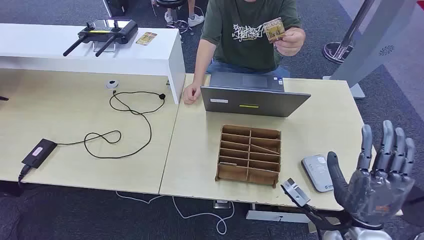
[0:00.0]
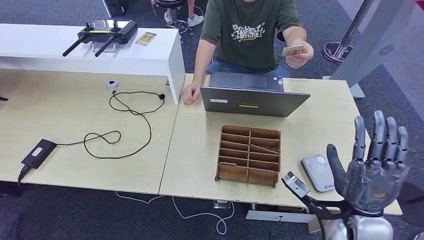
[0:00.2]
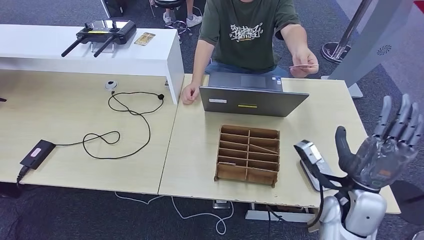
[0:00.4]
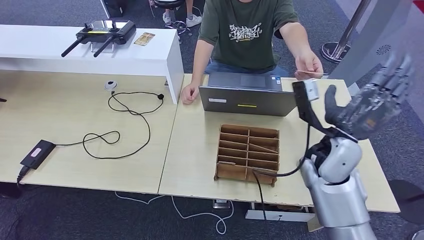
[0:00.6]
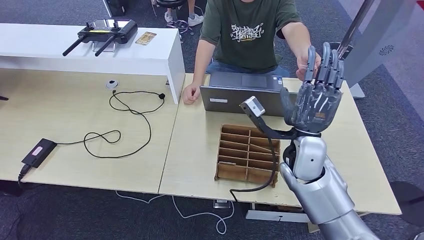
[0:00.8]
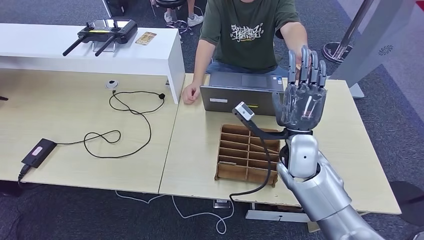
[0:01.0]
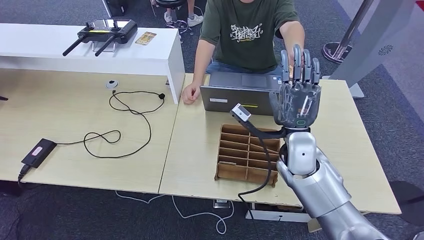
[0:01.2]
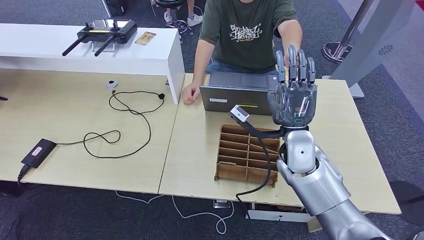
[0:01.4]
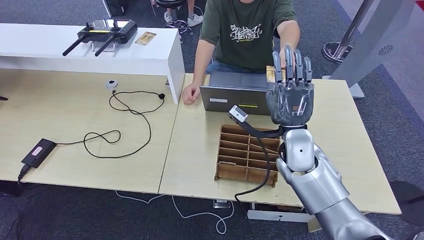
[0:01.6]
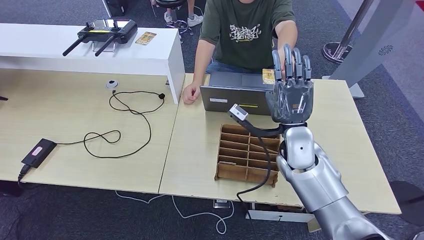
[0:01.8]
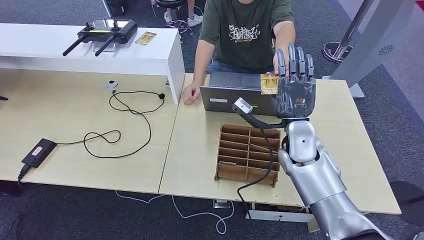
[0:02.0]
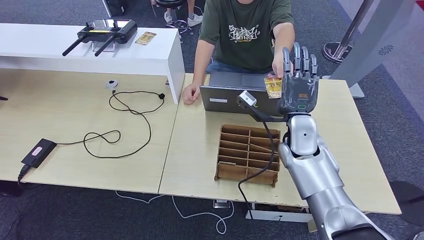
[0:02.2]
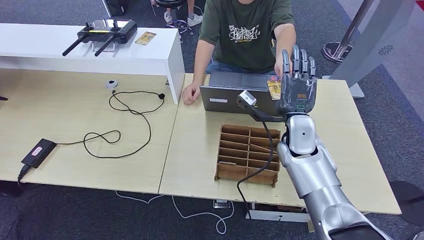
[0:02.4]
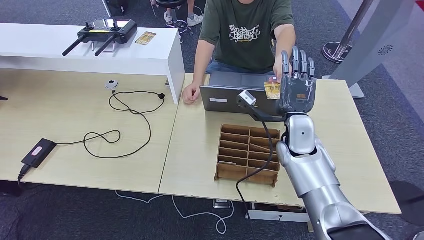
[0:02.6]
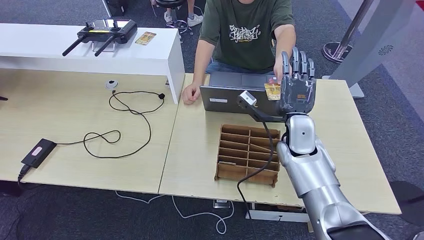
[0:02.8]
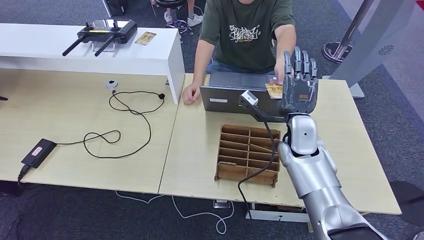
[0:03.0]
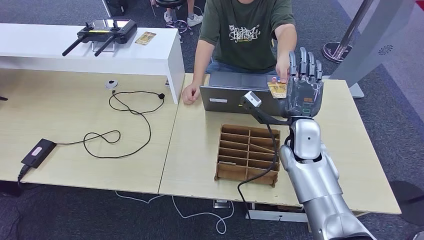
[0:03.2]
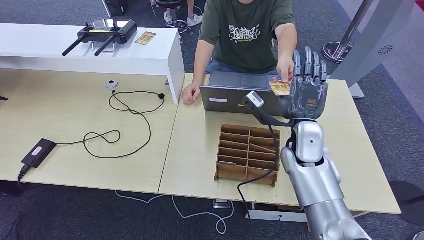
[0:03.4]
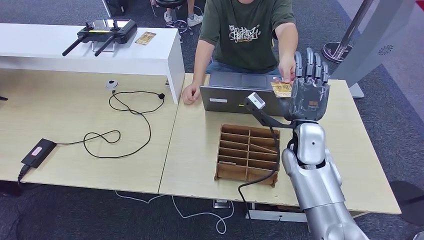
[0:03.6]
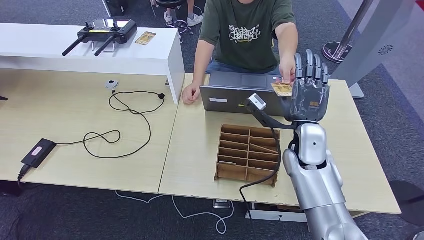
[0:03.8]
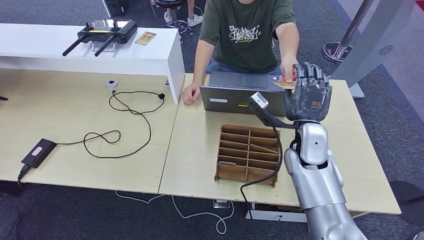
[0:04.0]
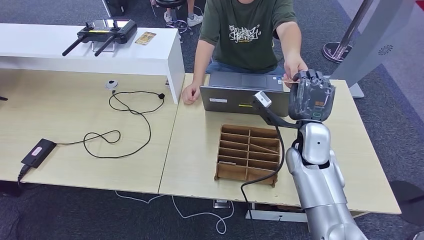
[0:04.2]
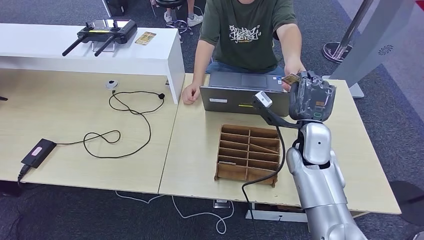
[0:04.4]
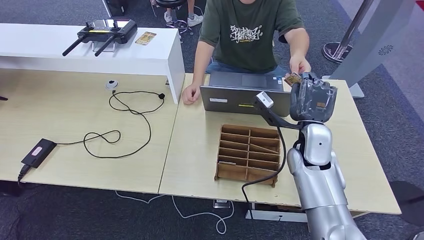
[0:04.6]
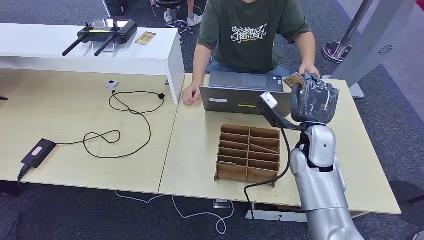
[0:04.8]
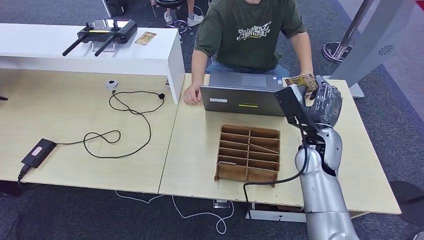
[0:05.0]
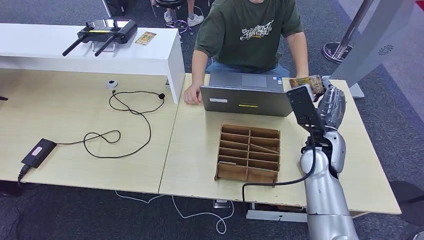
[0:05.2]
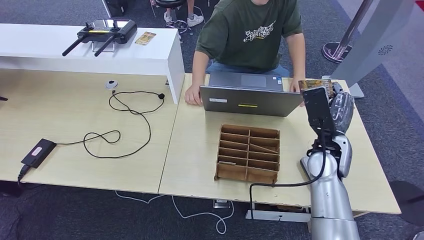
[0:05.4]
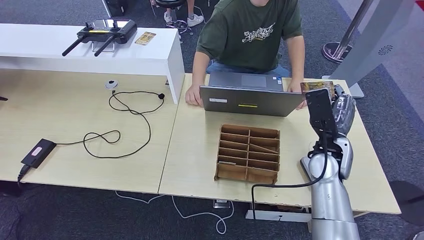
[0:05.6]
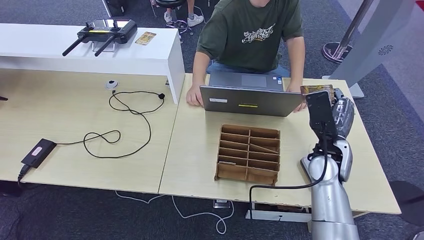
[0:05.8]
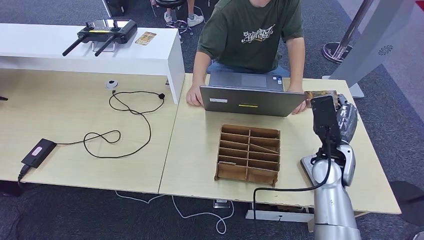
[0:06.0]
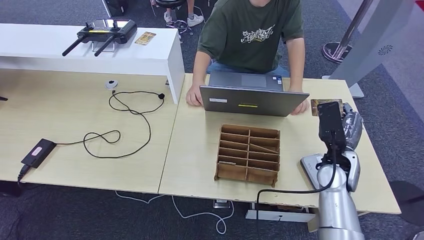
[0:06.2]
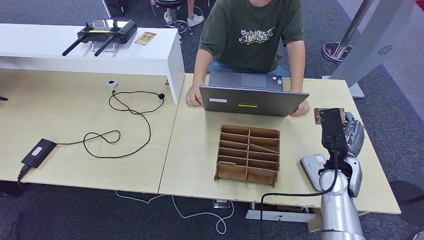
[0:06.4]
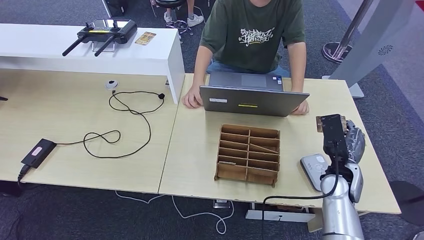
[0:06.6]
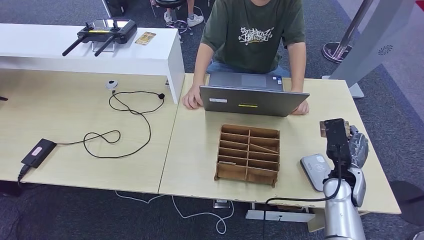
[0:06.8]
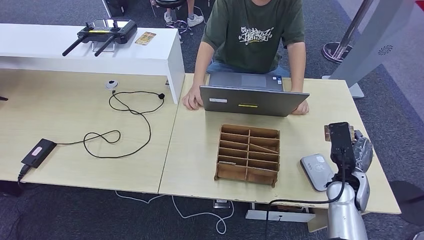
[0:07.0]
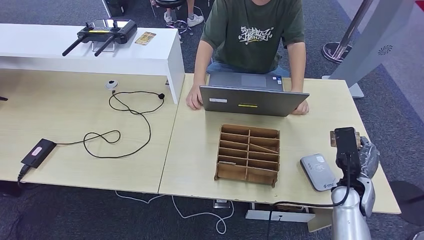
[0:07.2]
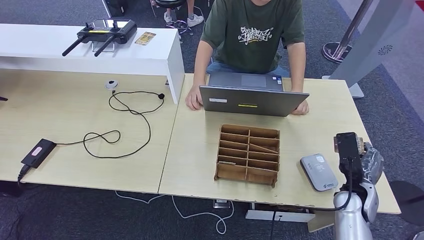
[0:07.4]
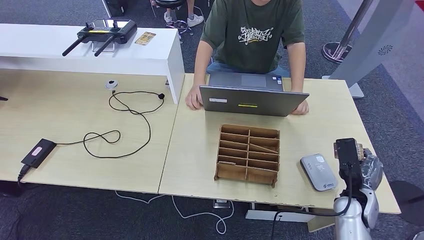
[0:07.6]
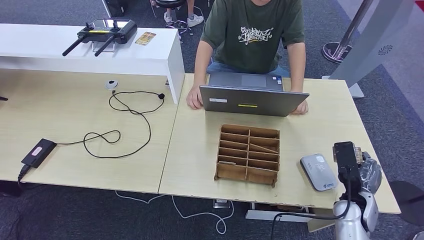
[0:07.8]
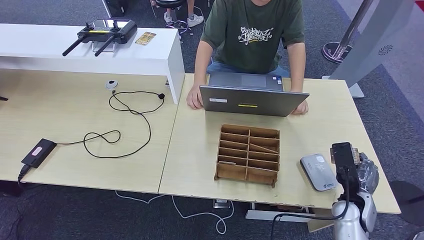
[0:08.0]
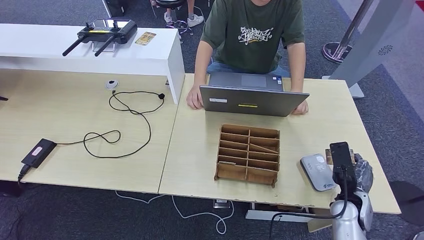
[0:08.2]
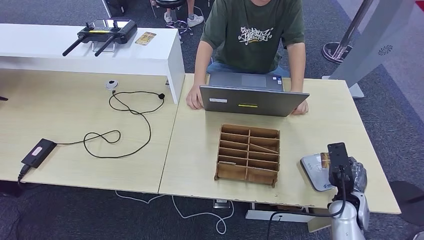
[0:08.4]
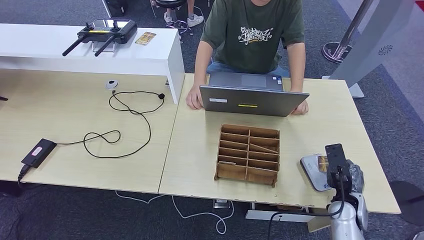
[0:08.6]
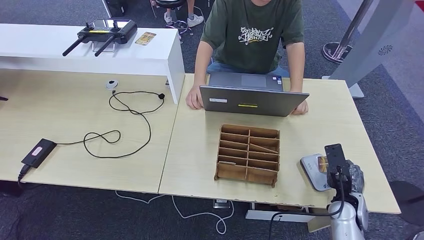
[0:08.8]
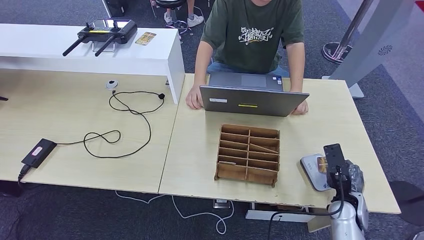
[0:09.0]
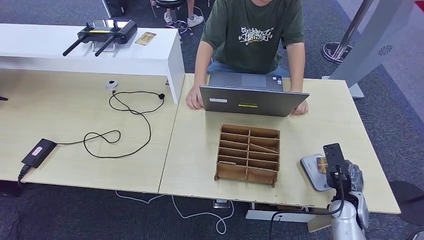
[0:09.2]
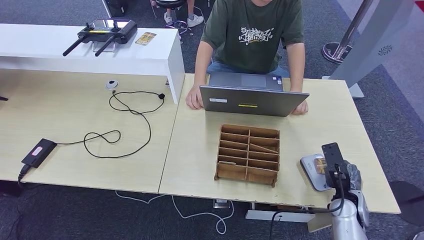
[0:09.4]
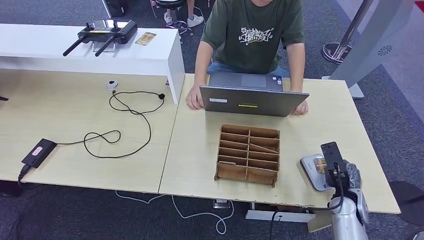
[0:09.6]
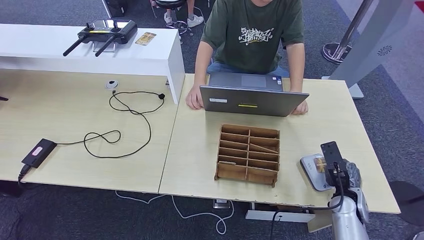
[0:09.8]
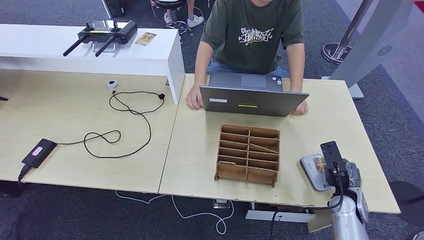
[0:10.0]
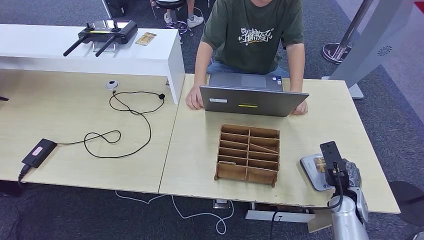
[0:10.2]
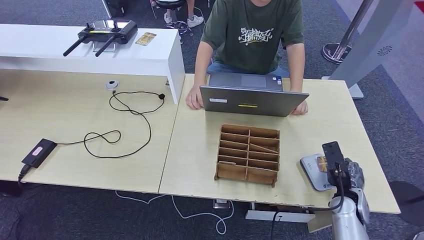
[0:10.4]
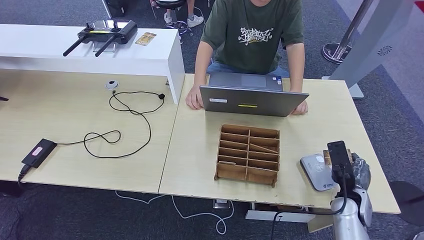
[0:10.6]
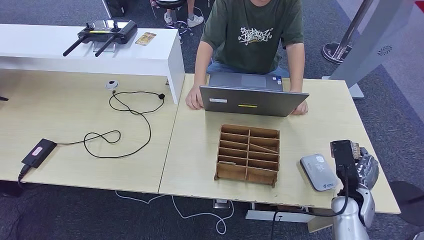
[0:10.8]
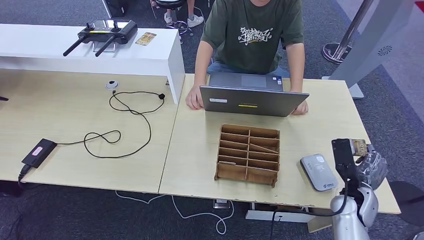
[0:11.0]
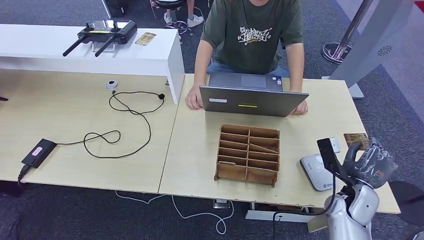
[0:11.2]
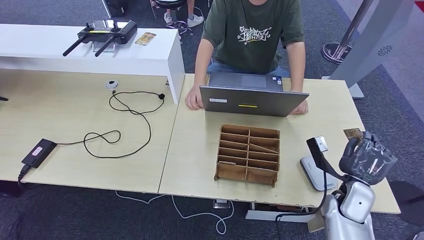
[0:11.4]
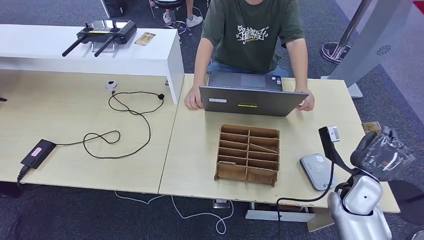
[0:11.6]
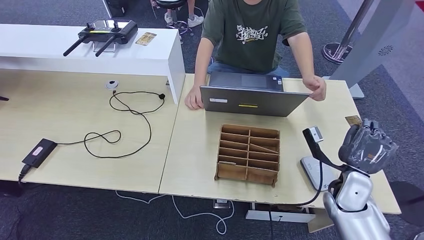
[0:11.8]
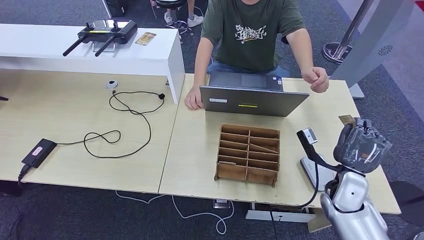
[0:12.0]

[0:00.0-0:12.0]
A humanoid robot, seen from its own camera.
Step, 0:00.0 to 0:05.0: Take the ID card from the person's hand.
Step, 0:05.2 to 0:09.8: Place the ID card on the card reader.
0:01.6 to 0:04.4: The hands make only small movements.
0:04.4 to 0:06.0: The right hand goes about 5 cm to the right.
0:06.0 to 0:07.6: The right hand travels downward, to the right and backward by approximately 15 cm.
0:07.6 to 0:09.0: The hands move only a little.
0:09.0 to 0:10.4: The hands move only a little.
0:10.4 to 0:12.0: The right hand moves upward, some 5 cm.

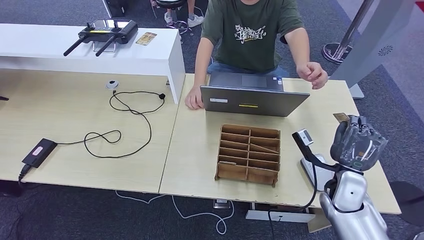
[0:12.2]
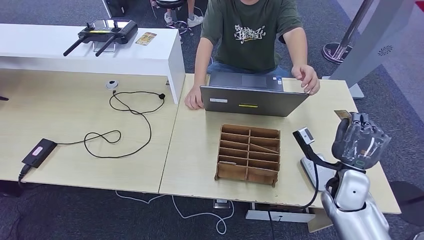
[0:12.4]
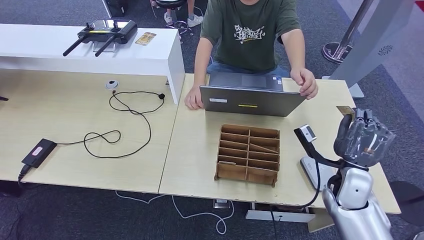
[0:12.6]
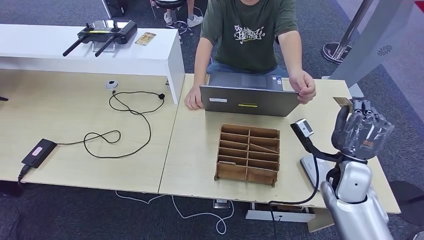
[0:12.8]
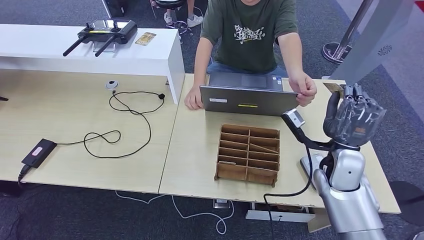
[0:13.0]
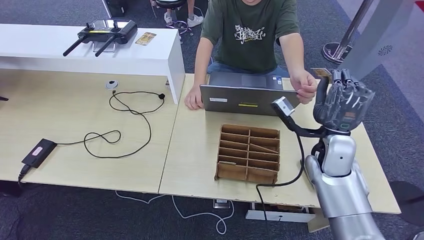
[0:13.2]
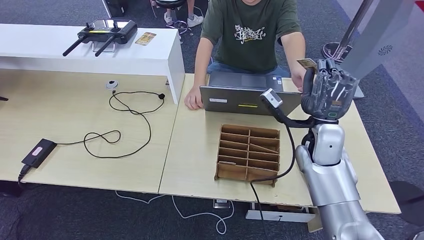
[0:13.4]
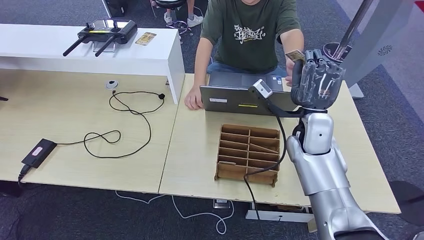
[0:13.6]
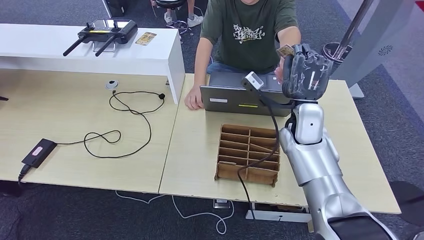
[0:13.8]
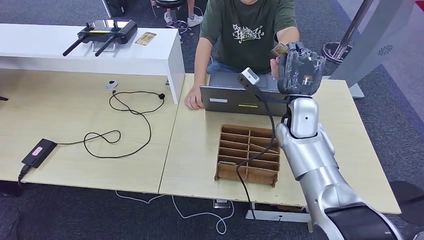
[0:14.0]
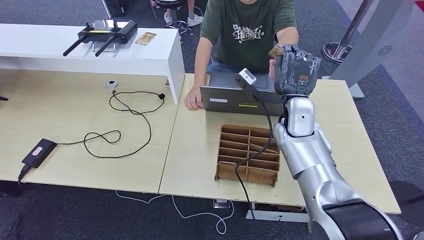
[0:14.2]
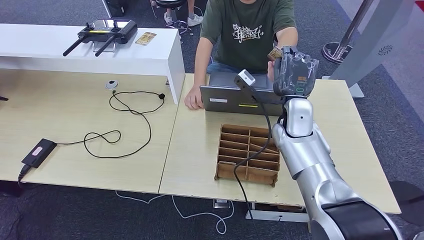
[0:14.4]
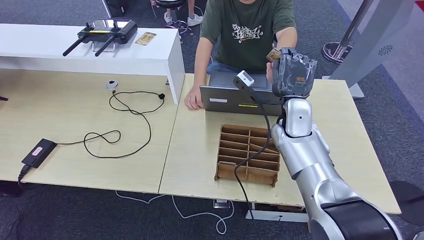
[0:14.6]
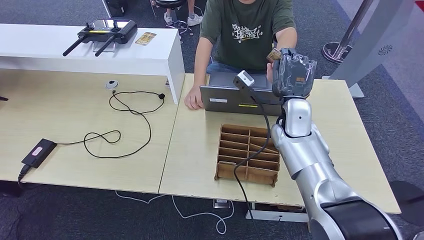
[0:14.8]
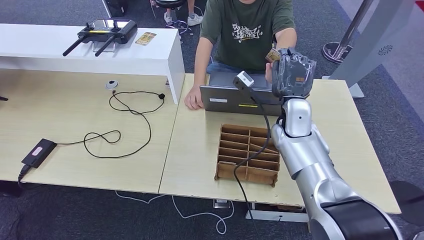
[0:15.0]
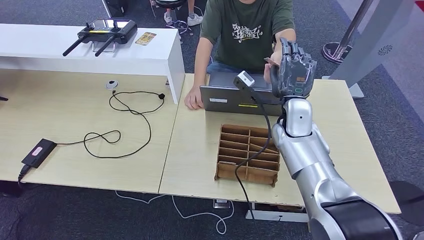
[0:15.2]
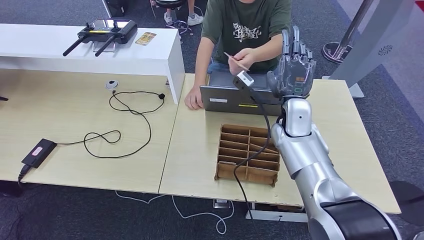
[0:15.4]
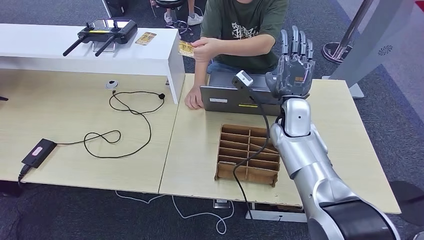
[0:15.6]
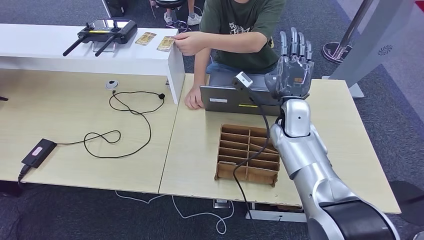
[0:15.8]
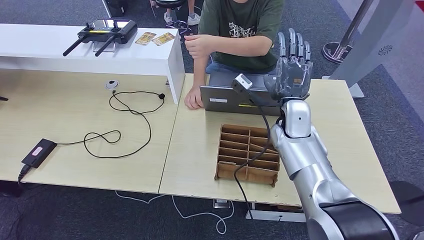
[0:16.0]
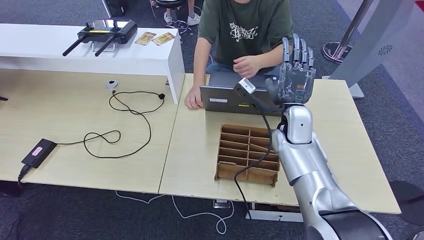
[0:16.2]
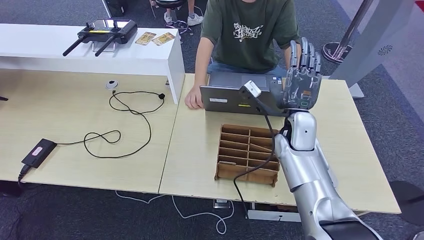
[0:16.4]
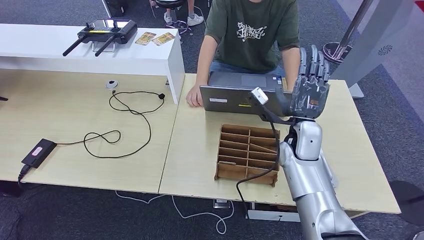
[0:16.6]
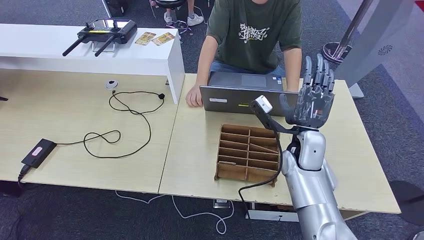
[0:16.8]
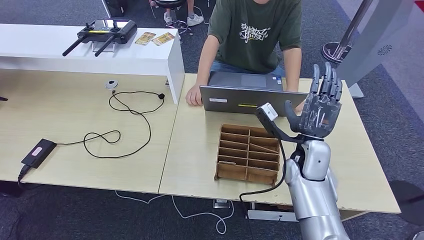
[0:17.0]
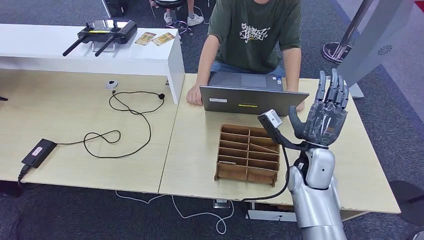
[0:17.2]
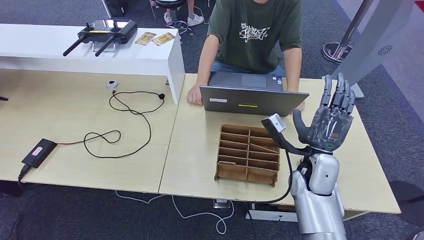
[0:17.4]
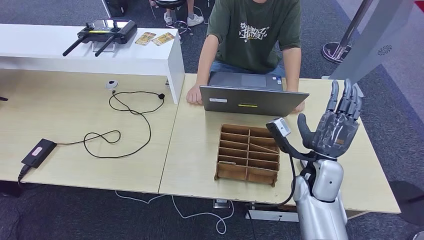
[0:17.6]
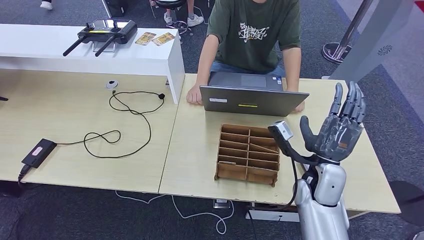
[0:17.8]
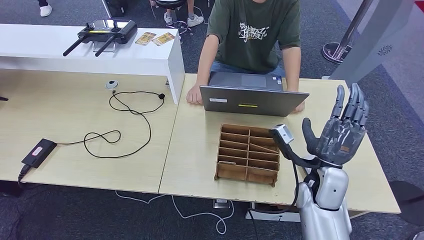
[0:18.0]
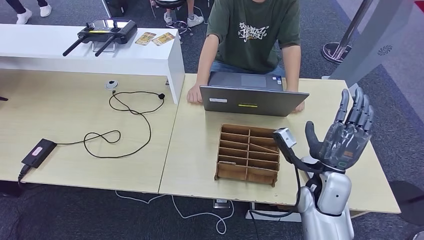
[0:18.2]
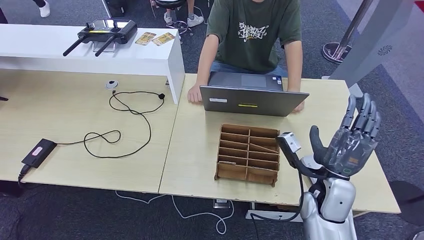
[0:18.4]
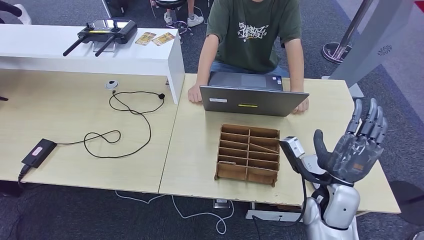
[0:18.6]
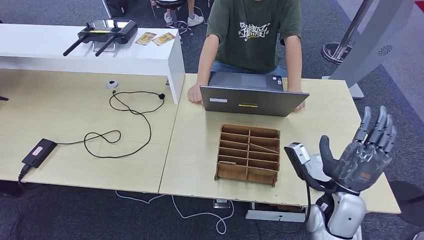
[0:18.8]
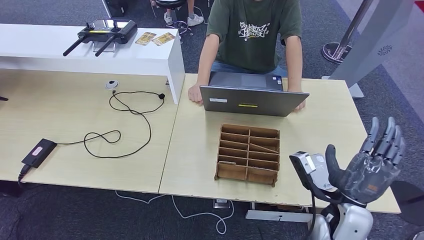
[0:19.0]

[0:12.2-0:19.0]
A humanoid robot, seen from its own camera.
Step, 0:12.2 to 0:15.4: Hand the ID card to the person.
0:12.2 to 0:13.6: The right hand moves upward, to the left and forward, approximately 15 cm.
0:13.6 to 0:16.2: The hands stay close to where they were, moving slightly.
0:16.2 to 0:17.6: The right hand travels backward and downward by roughly 10 cm.
0:17.6 to 0:19.0: The right hand heads backward, covering some 10 cm.
